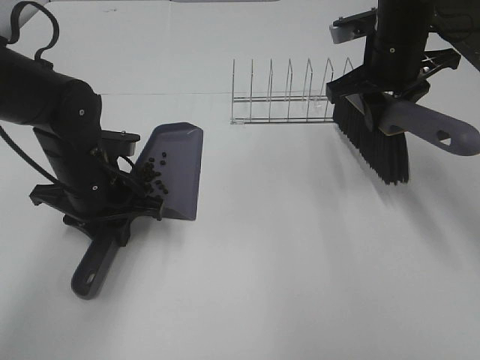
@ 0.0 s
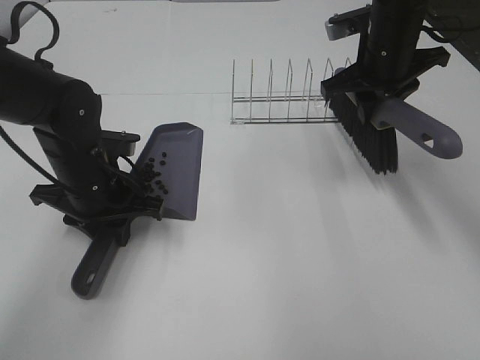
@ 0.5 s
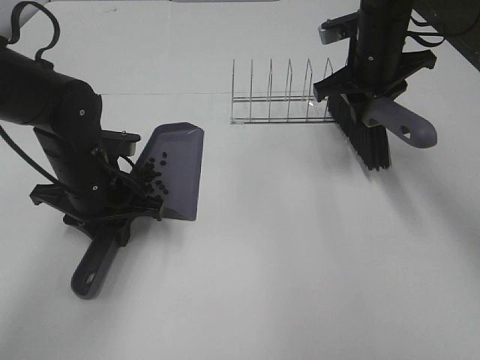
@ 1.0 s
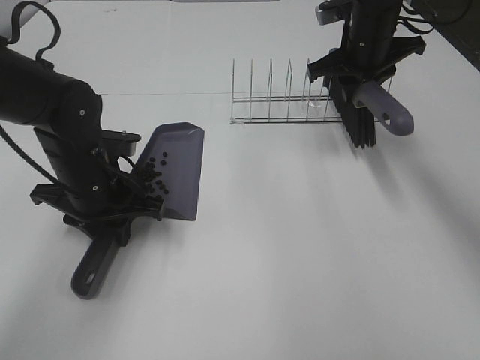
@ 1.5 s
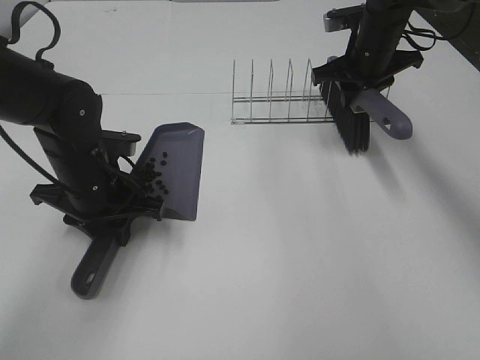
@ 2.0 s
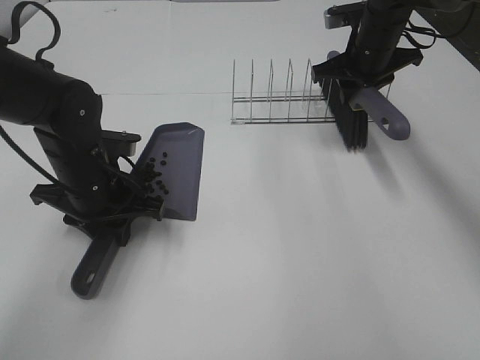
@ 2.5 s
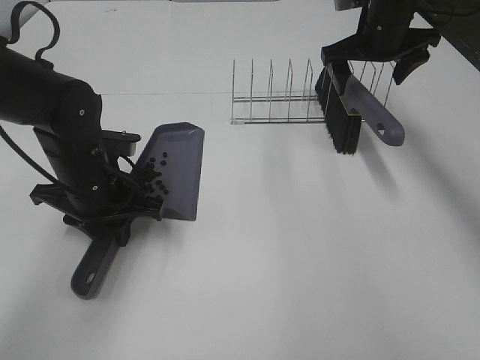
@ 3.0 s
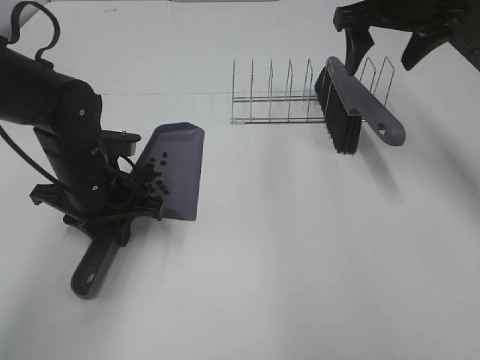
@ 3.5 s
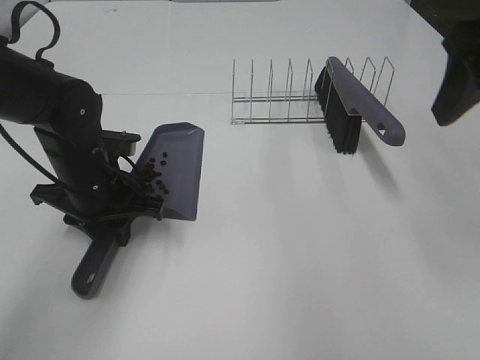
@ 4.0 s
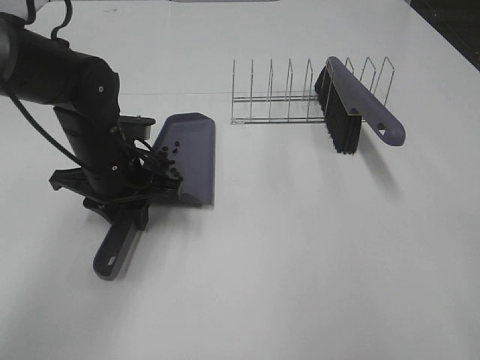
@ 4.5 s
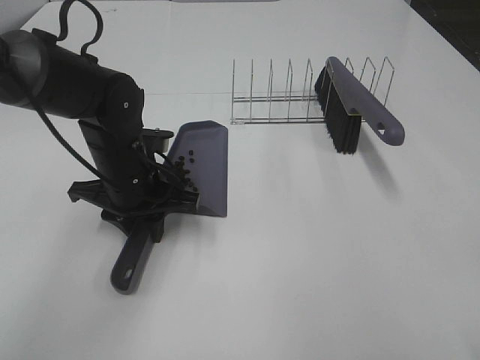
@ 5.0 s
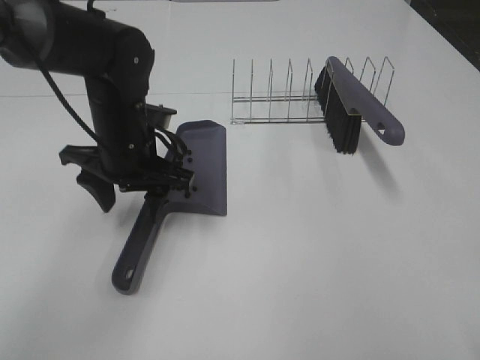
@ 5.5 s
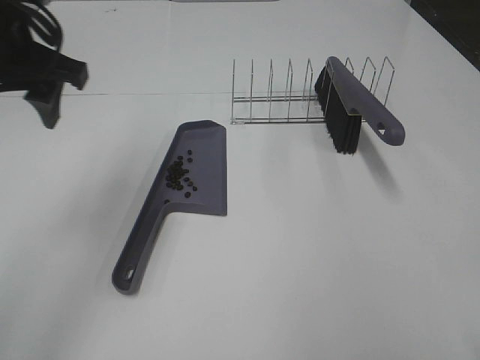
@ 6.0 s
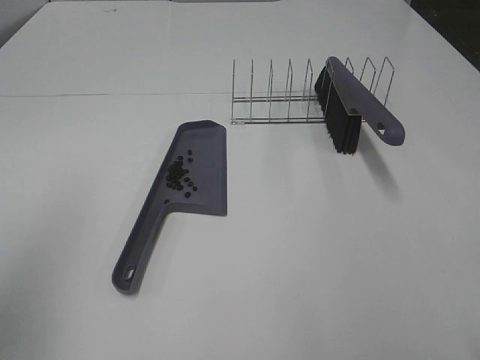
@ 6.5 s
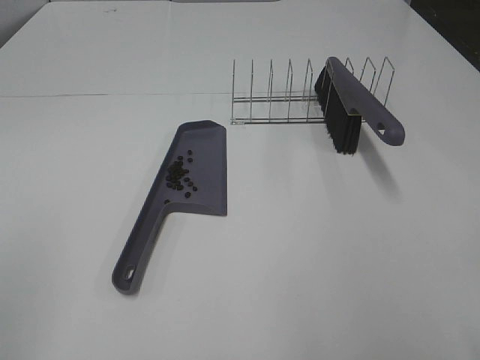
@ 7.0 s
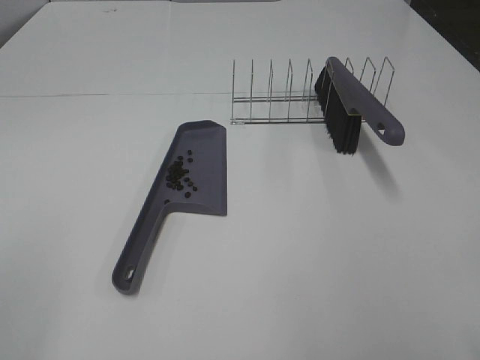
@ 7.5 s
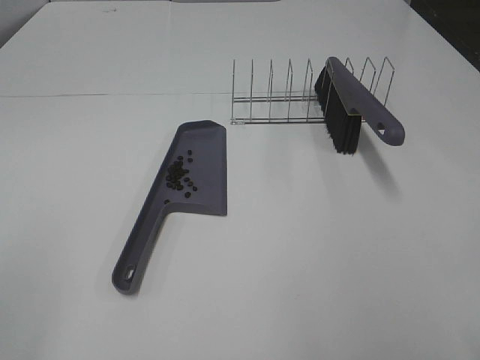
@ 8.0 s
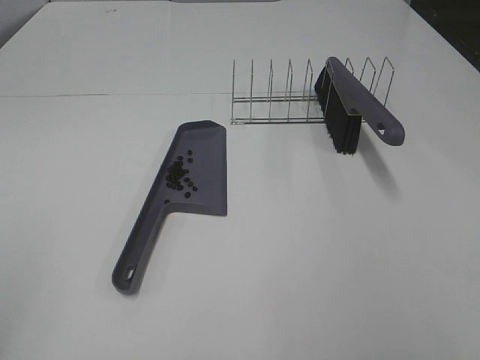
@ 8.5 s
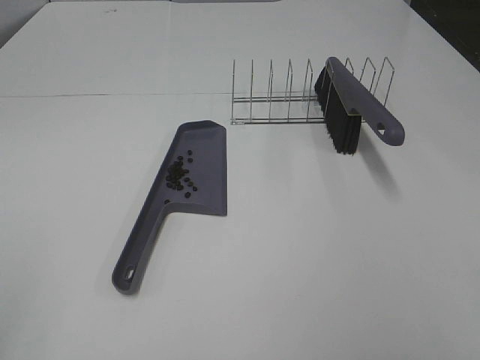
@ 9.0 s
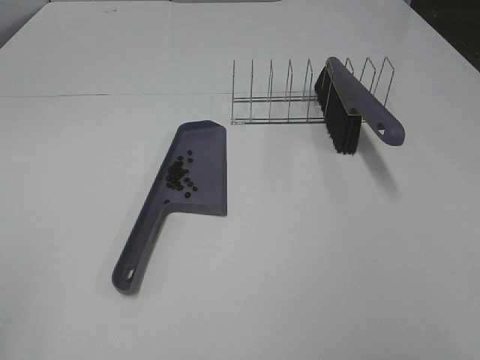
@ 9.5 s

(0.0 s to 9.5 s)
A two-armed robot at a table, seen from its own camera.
Task of the whole recording: Sweep Coffee Bean.
Step, 0.0 s - 2.5 s: Right hand:place the broom on the rack.
0.0 s - 2.0 s: The right gripper heads forward, covering some 10 cm.
2.0 s - 4.0 s: The right gripper moves backward and upward, approximately 30 cm, and opens its fingers.
4.0 s - 5.5 s: The left gripper shifts by approximately 5 cm, and opens its fingers; the right gripper goes some 15 cm backward.
5.5 s - 7.5 s: The left gripper moves backward, to the left and upward, approximately 40 cm.
